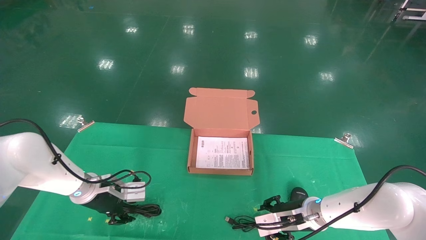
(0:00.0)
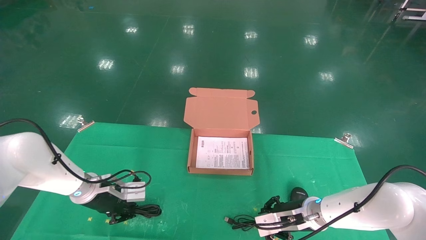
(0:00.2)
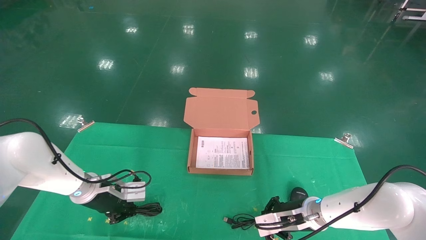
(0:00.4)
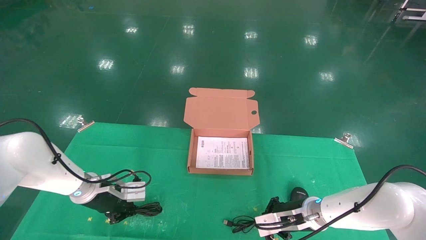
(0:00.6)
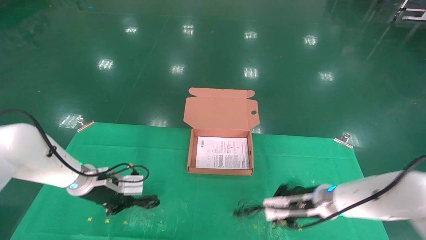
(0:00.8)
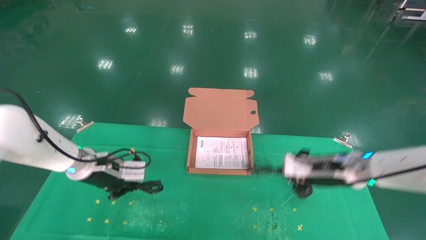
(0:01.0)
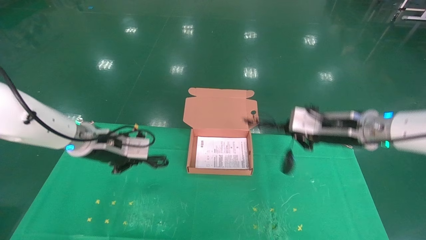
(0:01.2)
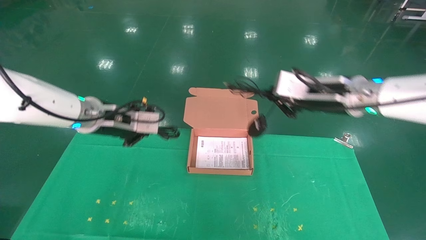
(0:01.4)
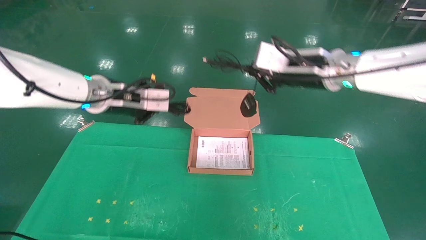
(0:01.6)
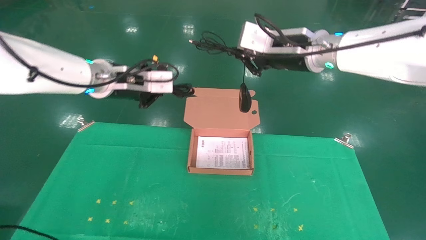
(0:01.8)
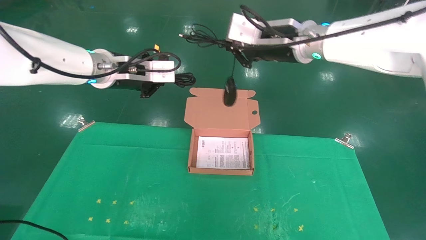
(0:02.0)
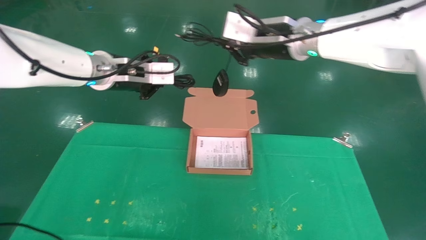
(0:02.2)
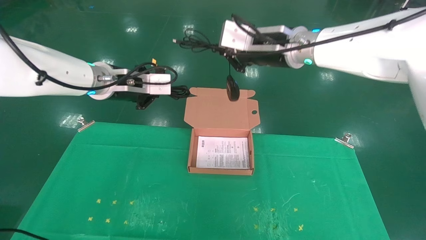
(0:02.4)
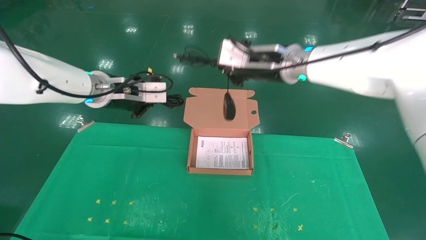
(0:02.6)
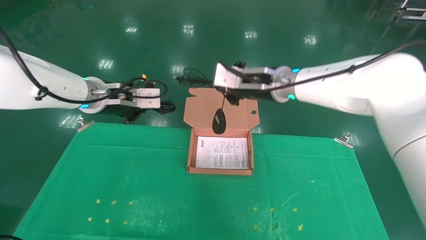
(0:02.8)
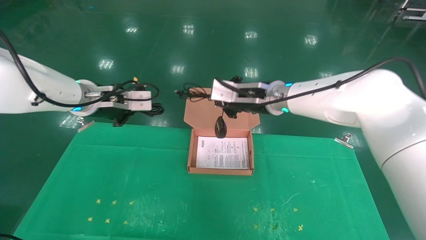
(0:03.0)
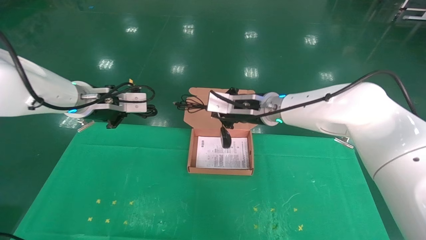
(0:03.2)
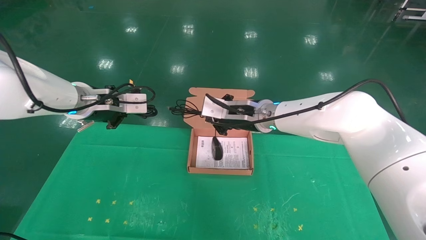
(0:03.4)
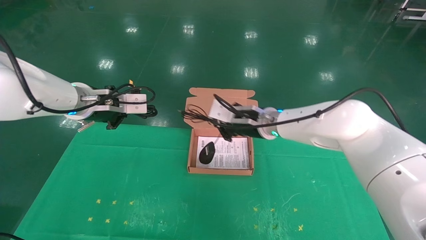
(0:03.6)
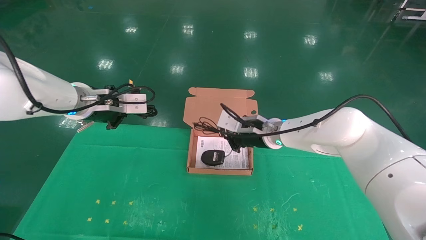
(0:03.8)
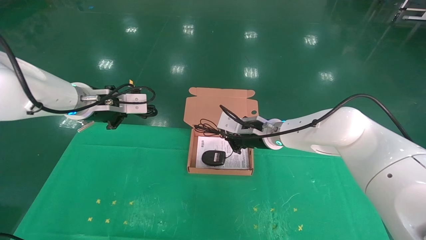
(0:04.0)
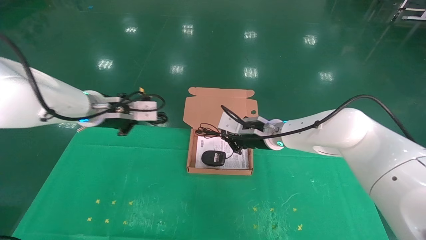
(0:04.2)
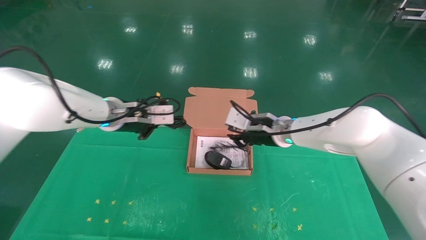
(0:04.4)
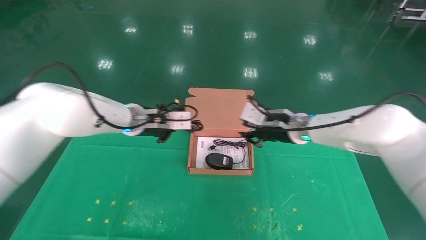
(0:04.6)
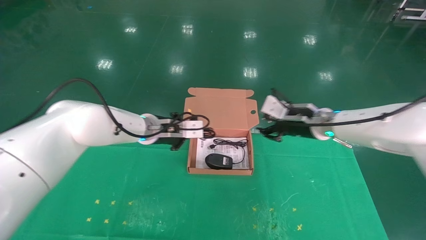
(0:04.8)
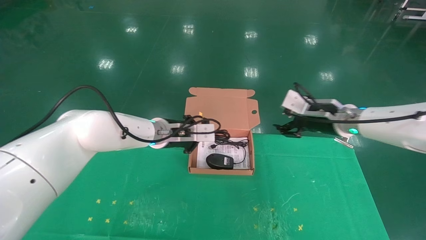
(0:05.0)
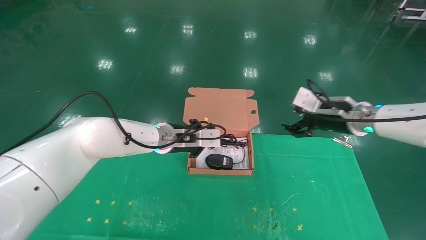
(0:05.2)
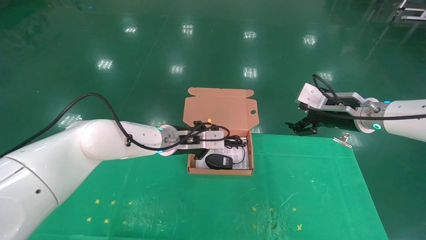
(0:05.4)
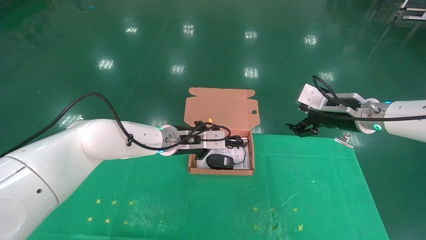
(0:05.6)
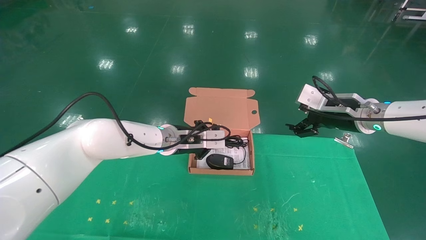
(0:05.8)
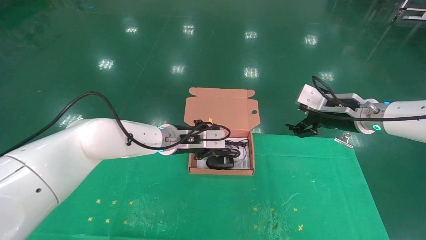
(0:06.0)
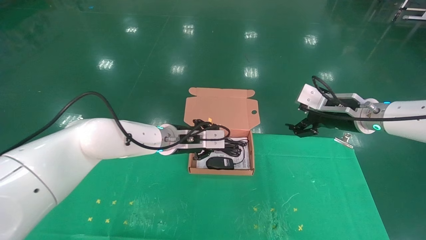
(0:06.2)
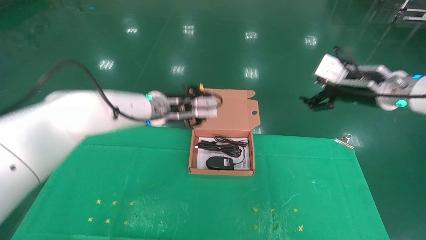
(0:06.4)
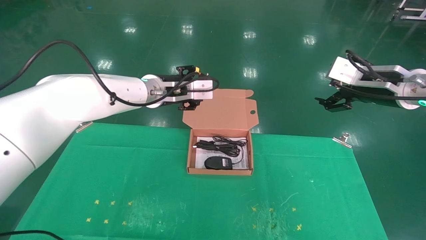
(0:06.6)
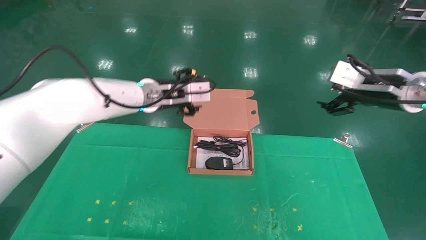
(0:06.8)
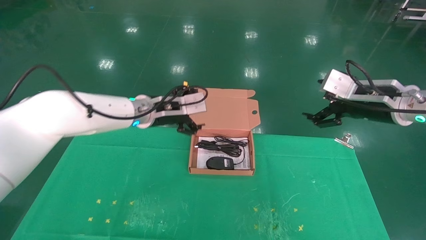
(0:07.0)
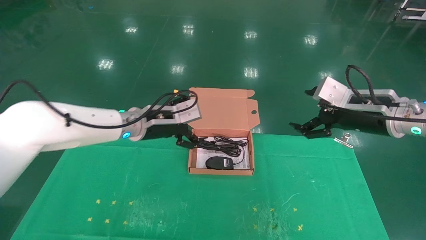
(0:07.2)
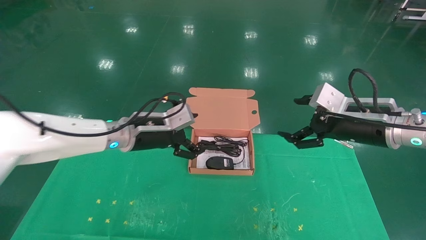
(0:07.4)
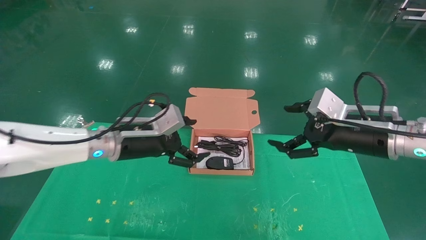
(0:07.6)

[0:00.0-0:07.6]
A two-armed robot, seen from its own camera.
Task of the whole recording: grasp data cable left put into box grasp mouse right put into box.
Step, 0:00.6 to 0:05.8: Place the mouse and power cord into the box.
0:00.0 to 0:01.6: Both grippers move upward, some 25 cm. The right gripper closes its fingers. The left gripper closes.
0:01.6 to 0:03.0: The right gripper is displaced to the left and forward by approximately 10 cm.
0:03.0 to 0:04.6: The left gripper shifts some 10 cm to the right and downward. Meanwhile the right gripper goes some 10 cm downward and to the right.
0:04.6 to 0:06.0: The left gripper moves to the right, approximately 10 cm. The right gripper moves to the right and upward, about 15 cm, and opens its fingers.
0:06.0 to 0:07.6: The right gripper is displaced backward by some 10 cm; the left gripper shifts some 10 cm to the left and backward, travels upward and back again, some 10 cm each way, and opens up.

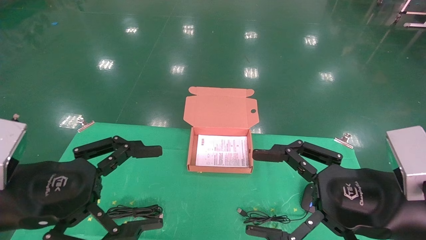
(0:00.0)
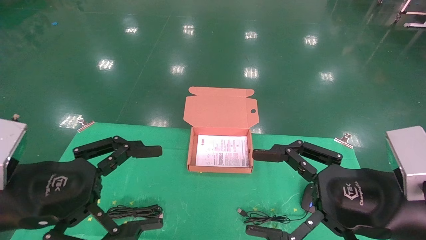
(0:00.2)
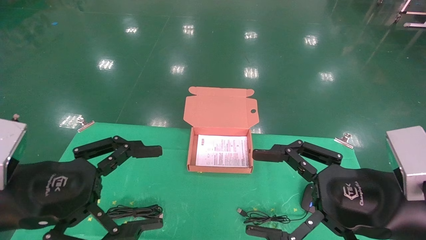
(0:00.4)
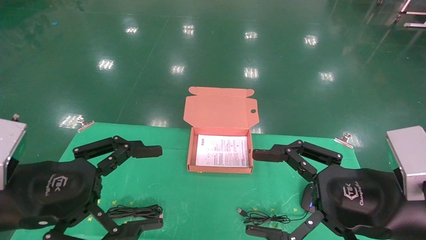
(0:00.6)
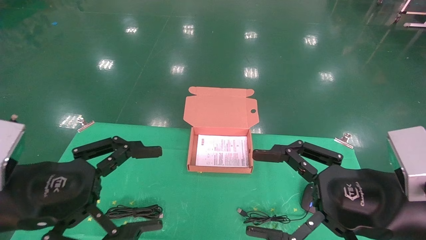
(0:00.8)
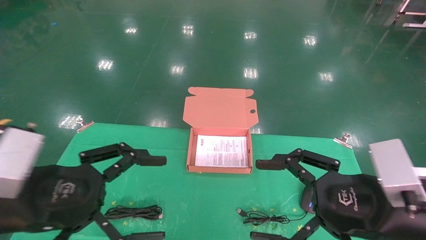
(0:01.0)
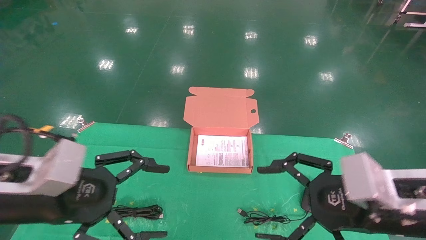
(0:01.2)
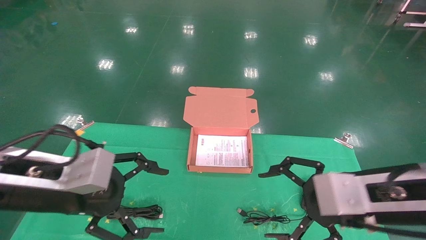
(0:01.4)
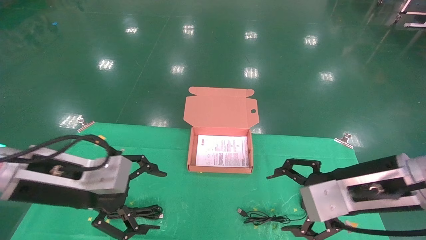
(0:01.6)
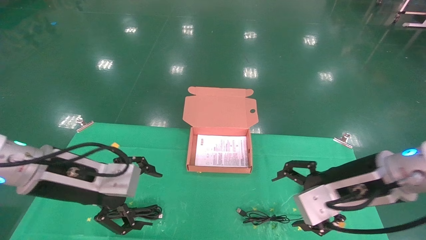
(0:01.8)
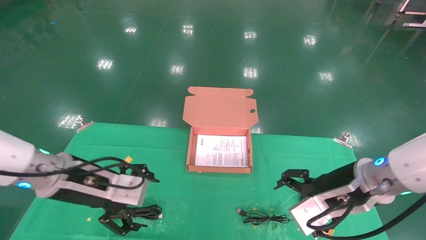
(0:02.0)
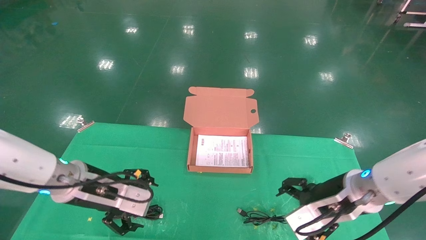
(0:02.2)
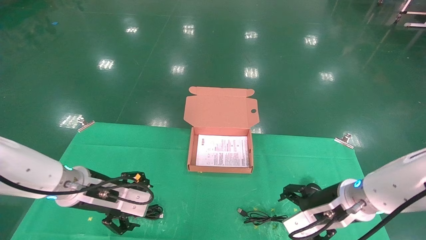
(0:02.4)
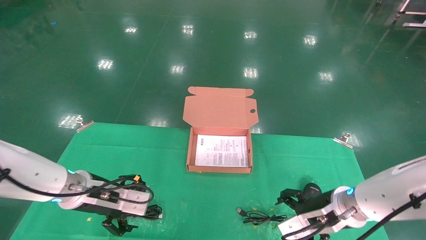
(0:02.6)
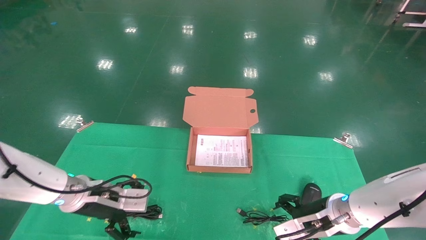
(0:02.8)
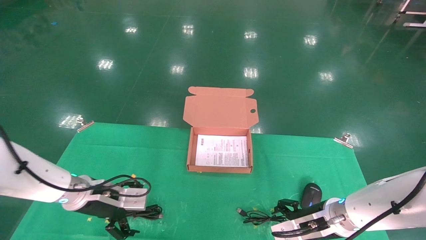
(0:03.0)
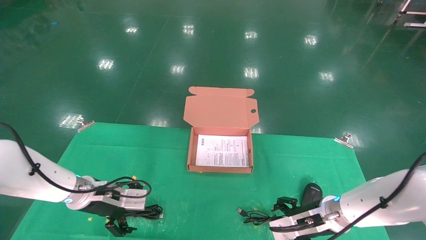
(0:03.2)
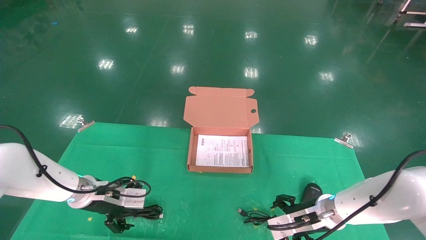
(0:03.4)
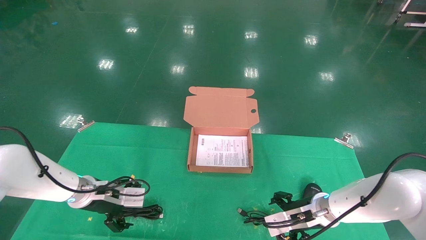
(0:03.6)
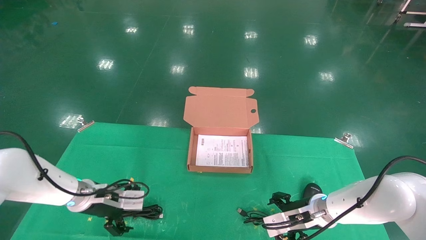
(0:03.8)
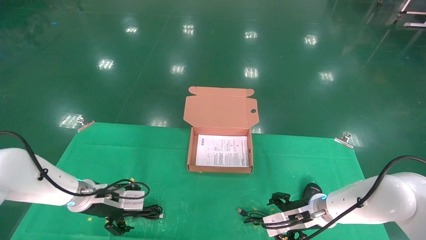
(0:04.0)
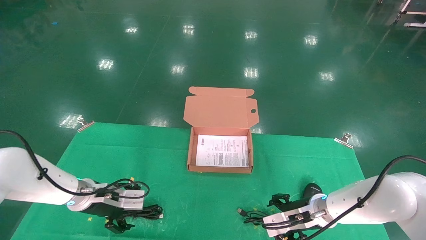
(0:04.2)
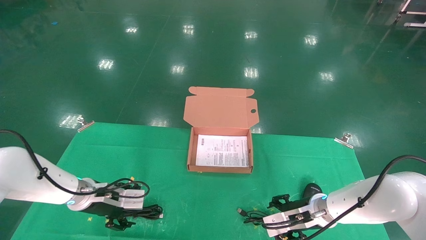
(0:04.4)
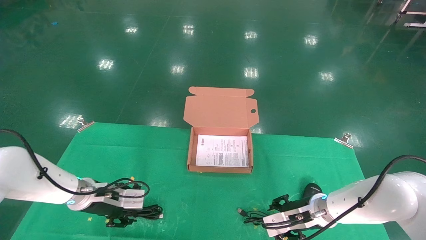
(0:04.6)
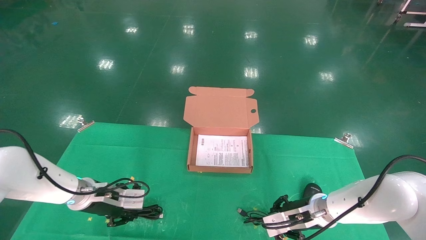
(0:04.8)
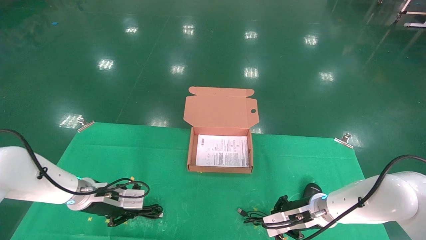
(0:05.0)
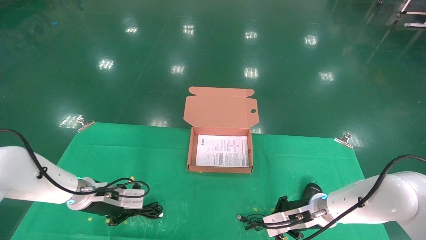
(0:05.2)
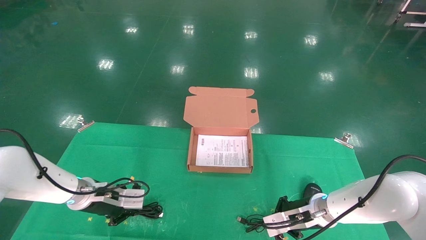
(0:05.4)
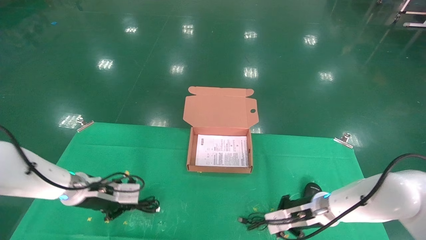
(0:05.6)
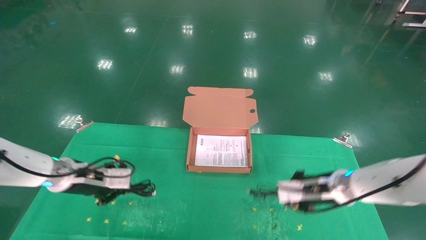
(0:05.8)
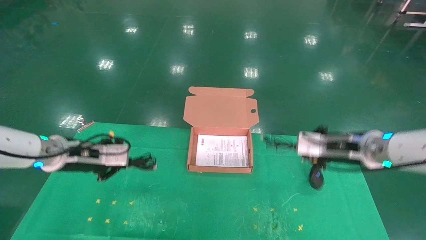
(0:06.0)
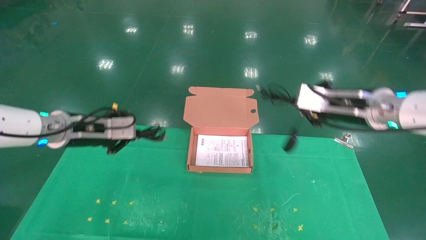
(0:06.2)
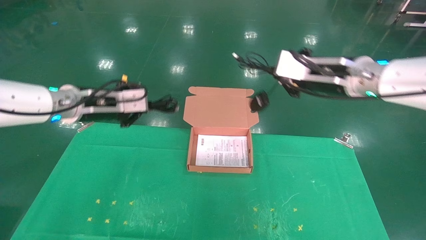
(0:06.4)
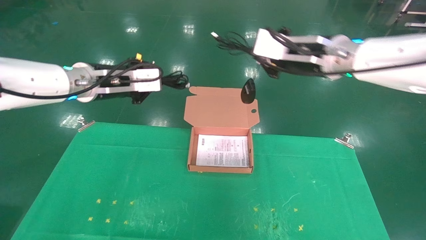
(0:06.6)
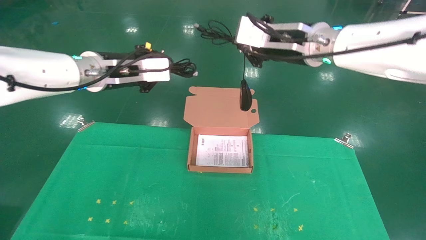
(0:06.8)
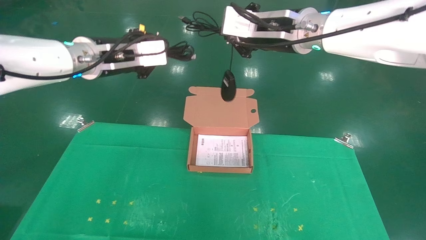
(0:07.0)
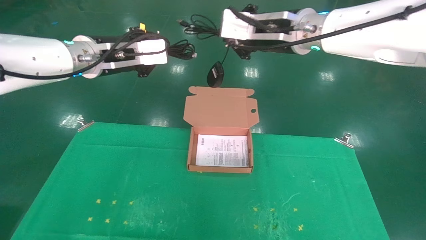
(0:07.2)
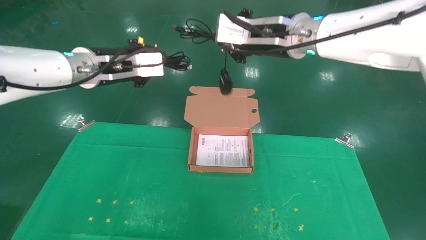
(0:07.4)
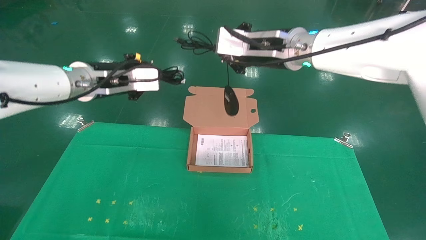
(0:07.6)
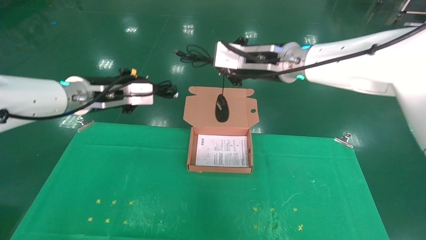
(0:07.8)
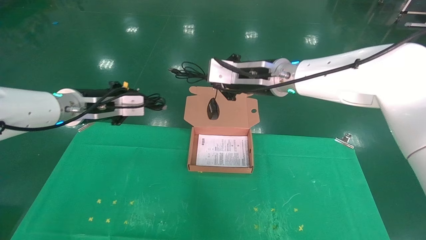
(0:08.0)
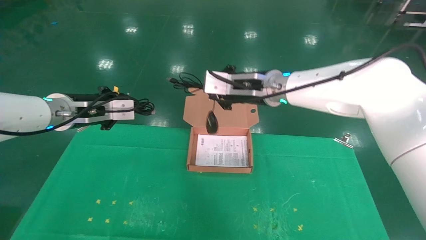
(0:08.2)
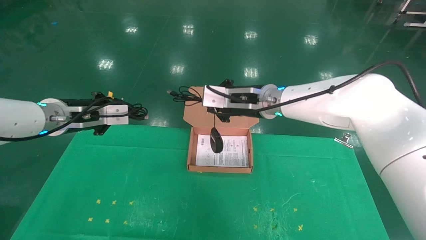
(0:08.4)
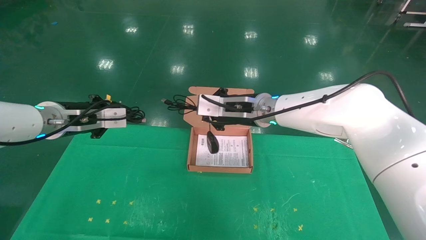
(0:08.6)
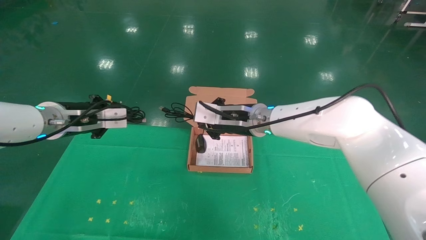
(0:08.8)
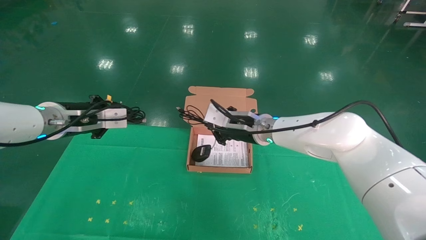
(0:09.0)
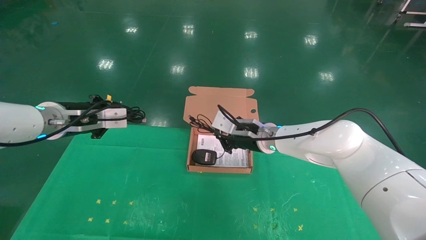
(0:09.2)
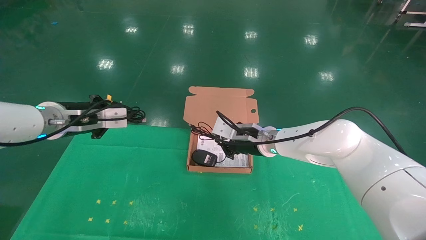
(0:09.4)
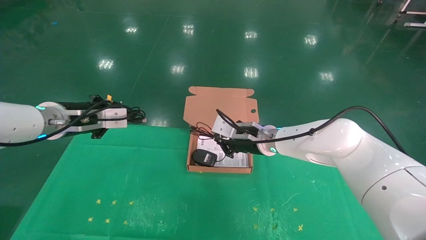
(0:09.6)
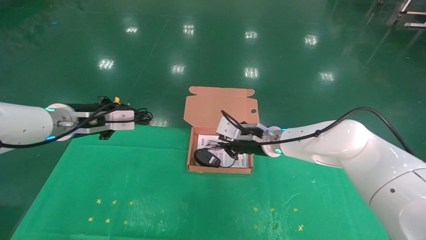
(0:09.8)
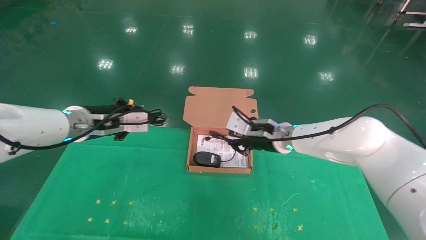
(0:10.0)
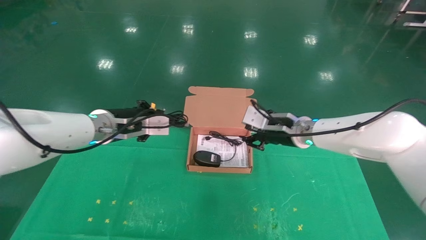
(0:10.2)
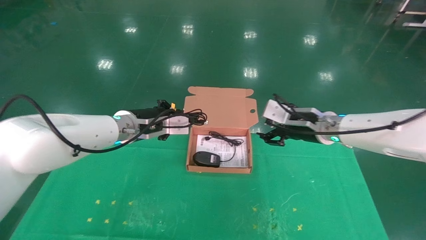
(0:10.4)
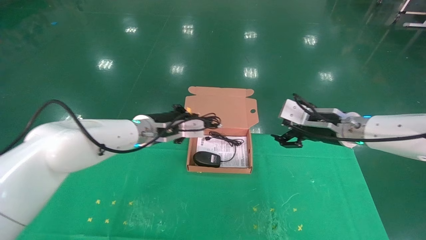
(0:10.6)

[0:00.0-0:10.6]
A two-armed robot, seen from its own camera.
Task of the whole recording: grasp data cable left put into box grasp mouse right put into box.
Step, 0:01.2 to 0:05.2: Grab and pick up both the mouse and power cord from the accessory packaging area at the same time.
0:00.0 to 0:01.6: The grippers both shift forward by about 5 cm.
0:01.6 to 0:03.0: Both grippers travel together downward and forward, some 15 cm.
0:03.0 to 0:04.6: The right gripper moves about 5 cm, and closes its fingers. Meanwhile the left gripper closes up.
0:04.6 to 0:06.0: The two grippers go roughly 15 cm upward. The right gripper closes its fingers. The left gripper closes its fingers.
0:06.0 to 0:07.6: The left gripper shifts about 15 cm upward and to the right. Meanwhile the right gripper moves upward and to the left, approximately 20 cm.
0:07.6 to 0:09.0: The left gripper moves downward and to the left, about 10 cm. Meanwhile the right gripper shifts about 20 cm downward.
0:09.0 to 0:10.6: The grippers both shift to the right by some 15 cm. The right gripper opens up.
